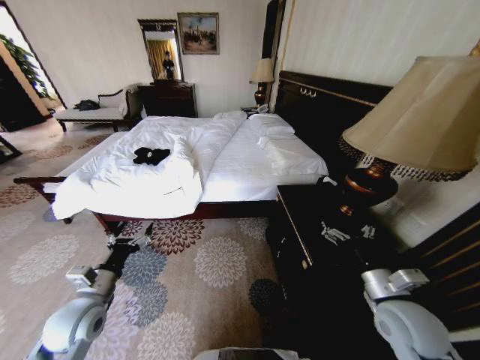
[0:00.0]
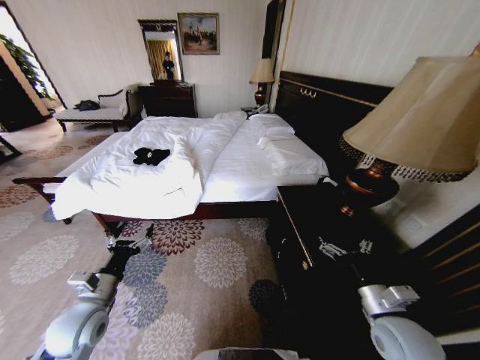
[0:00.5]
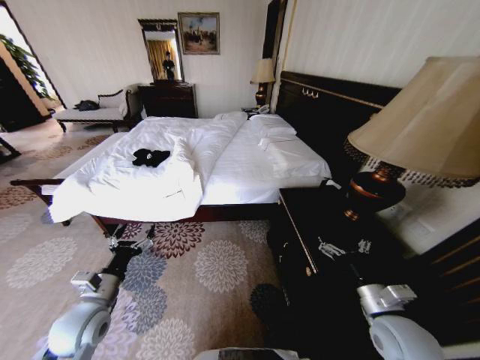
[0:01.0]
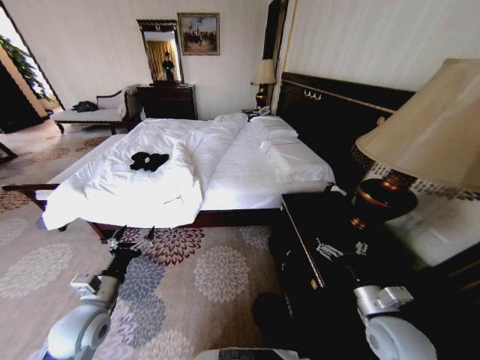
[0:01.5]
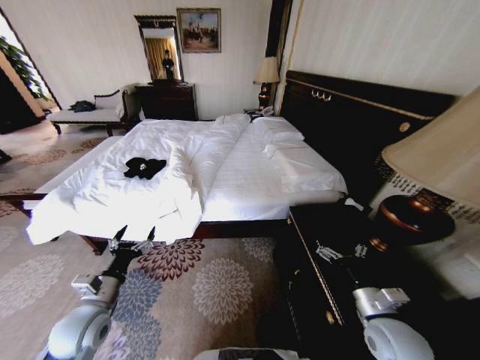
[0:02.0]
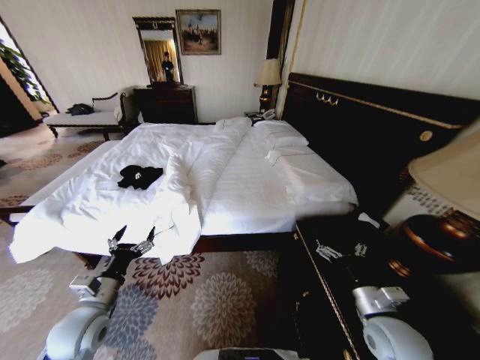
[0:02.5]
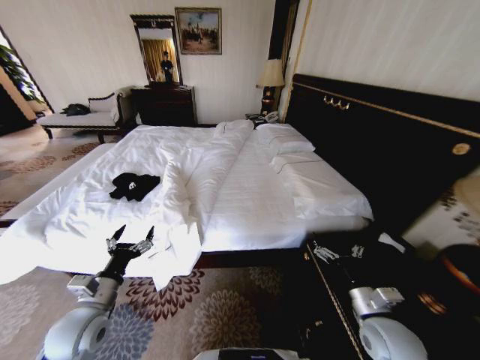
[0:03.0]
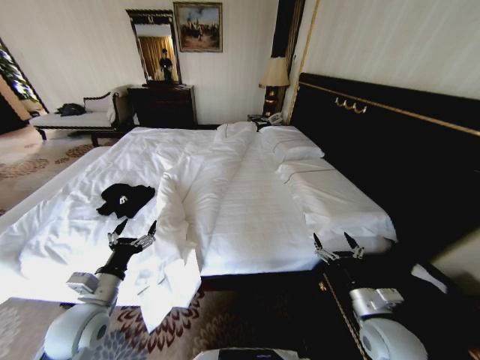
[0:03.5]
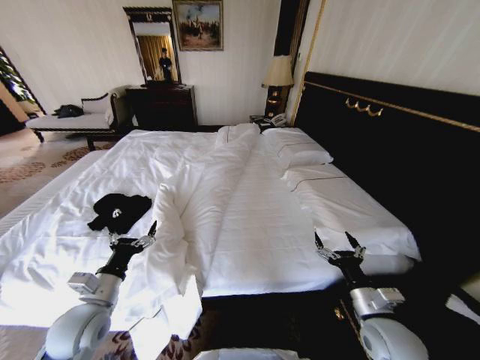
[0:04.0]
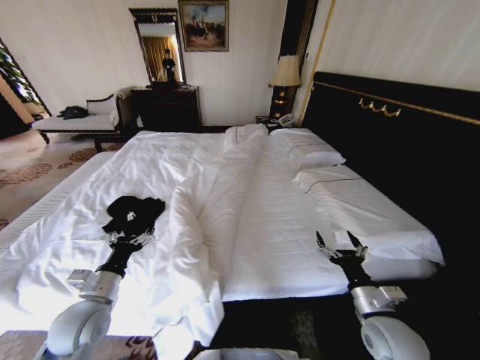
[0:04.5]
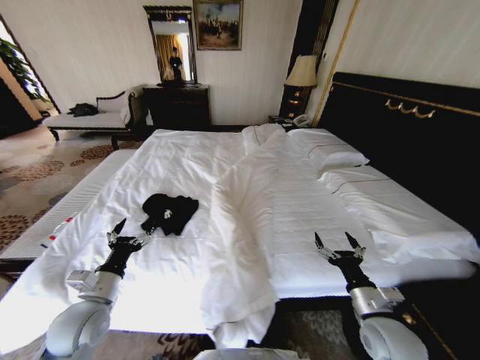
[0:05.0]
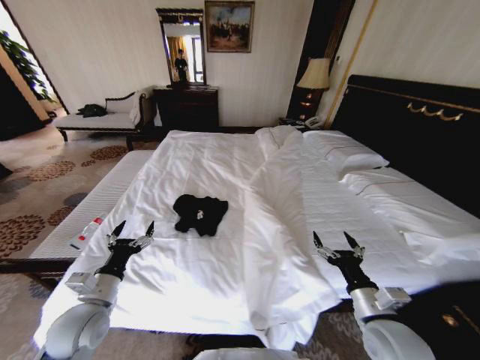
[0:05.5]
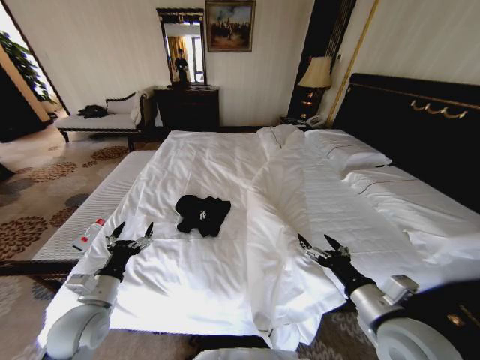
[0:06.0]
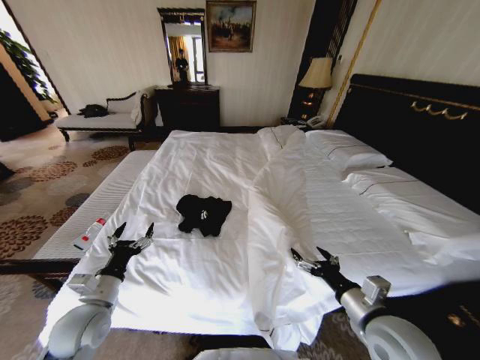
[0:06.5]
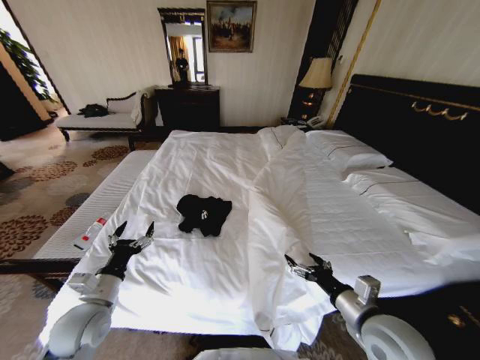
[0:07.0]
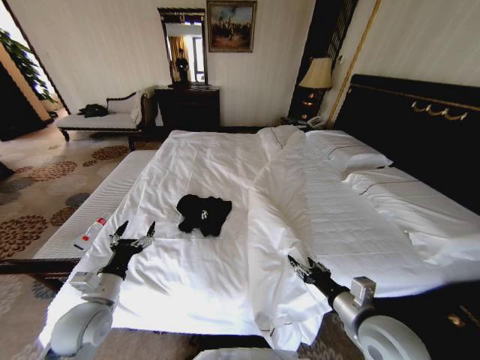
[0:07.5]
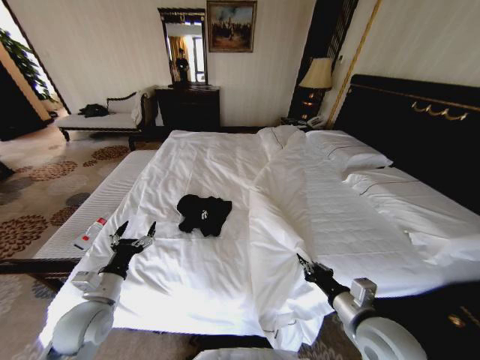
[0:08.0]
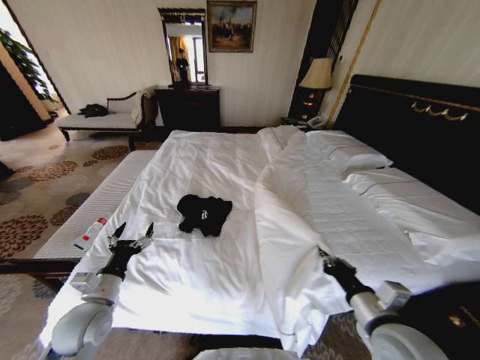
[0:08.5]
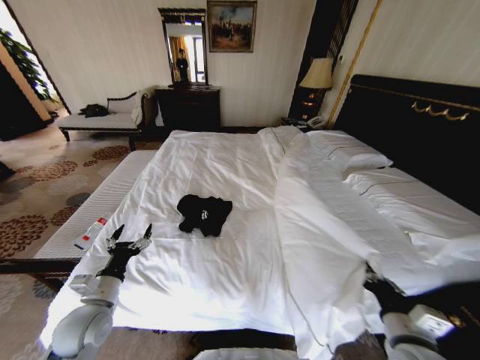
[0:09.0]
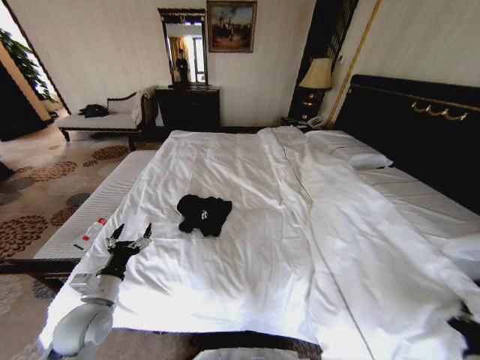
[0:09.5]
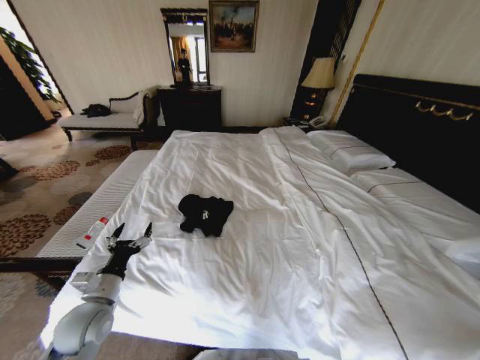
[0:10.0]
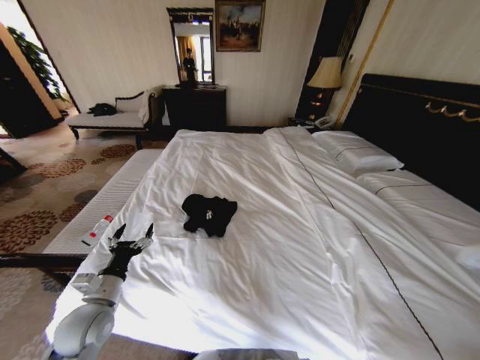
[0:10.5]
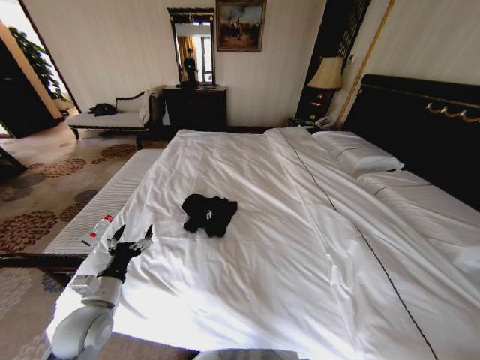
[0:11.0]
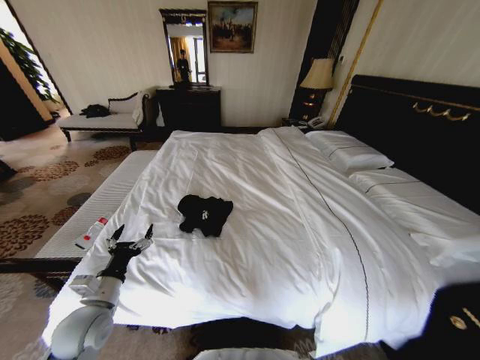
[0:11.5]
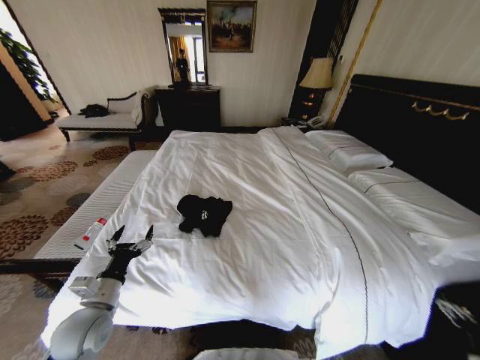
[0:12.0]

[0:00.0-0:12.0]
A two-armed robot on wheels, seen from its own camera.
Task of the whole recording: Fold the clothes on the bed.
4.0 to 6.0 s: The right gripper shifts approximately 10 cm upward.
6.0 to 8.0 s: The right gripper closes up.
8.0 to 10.0 s: The right gripper travels to the right and backward by roughly 30 cm.
10.0 to 12.0 s: The right gripper ends up approximately 5 cm from where it was, and opens up.

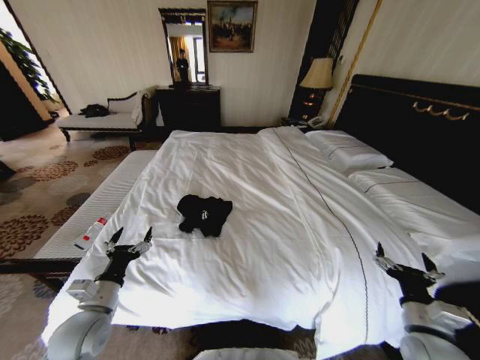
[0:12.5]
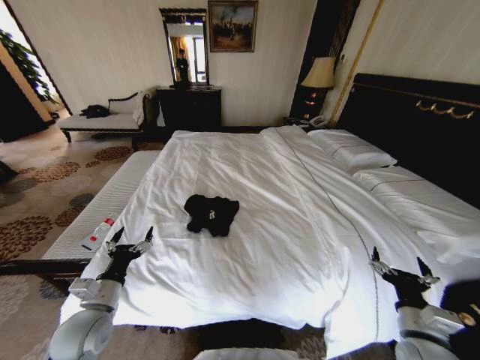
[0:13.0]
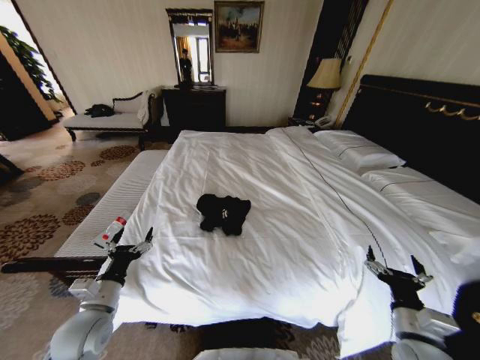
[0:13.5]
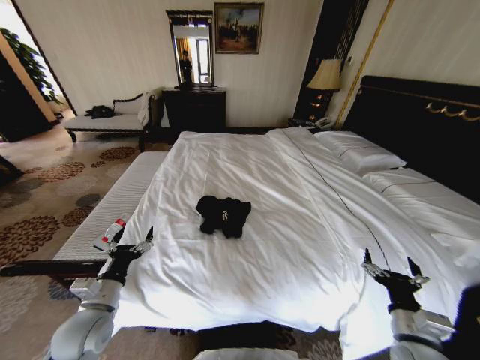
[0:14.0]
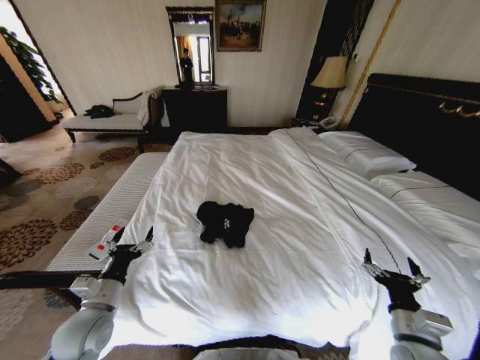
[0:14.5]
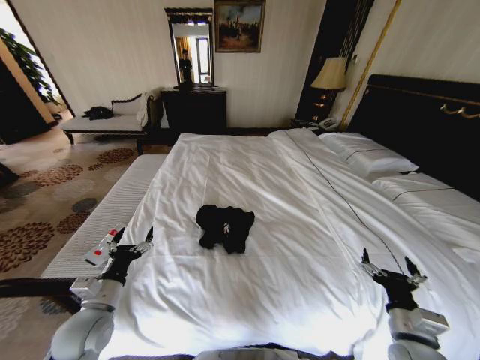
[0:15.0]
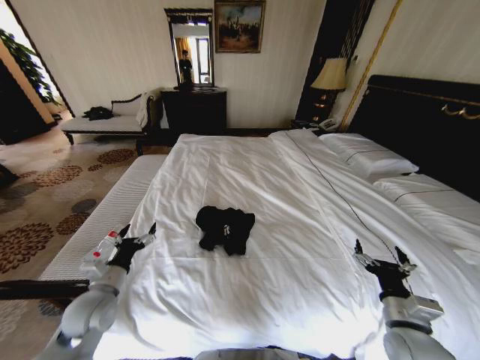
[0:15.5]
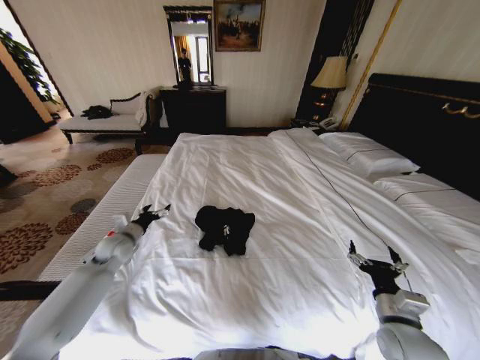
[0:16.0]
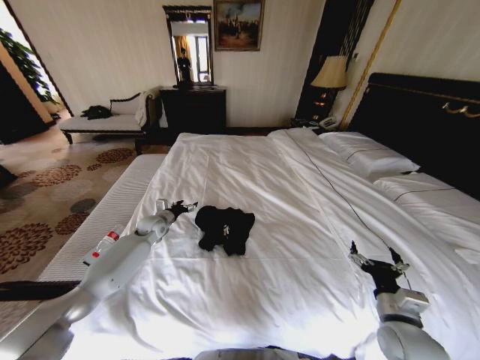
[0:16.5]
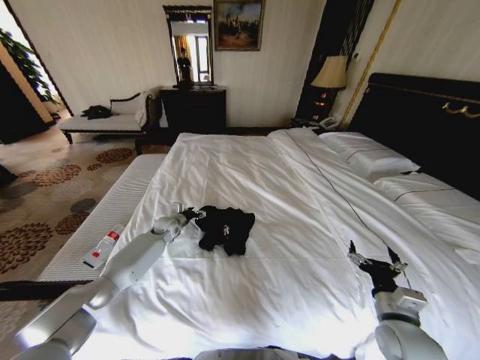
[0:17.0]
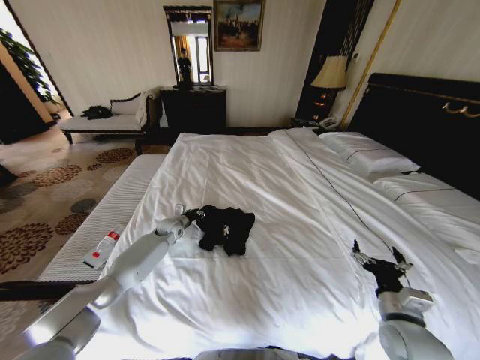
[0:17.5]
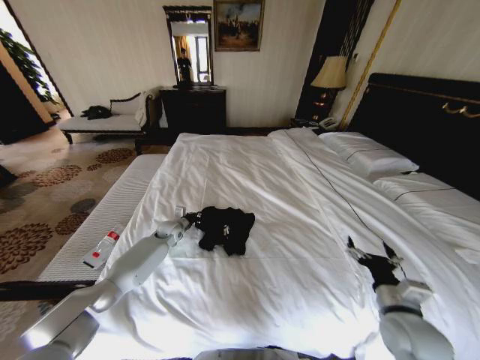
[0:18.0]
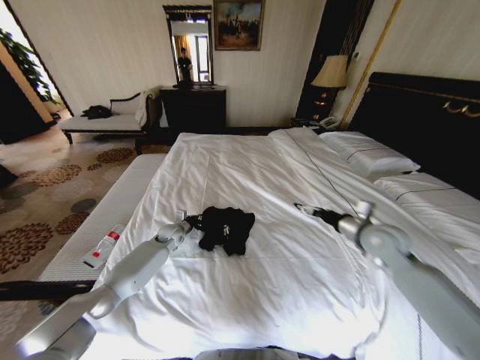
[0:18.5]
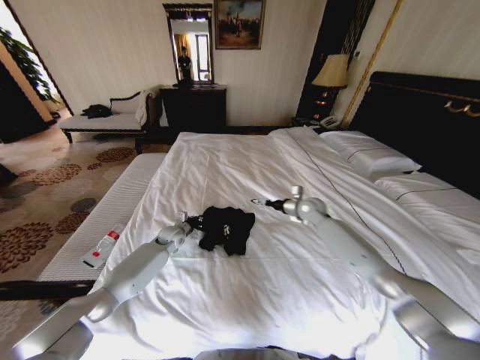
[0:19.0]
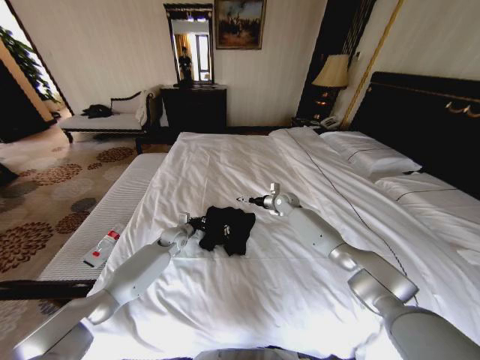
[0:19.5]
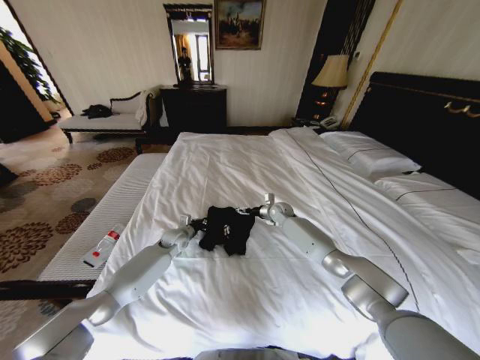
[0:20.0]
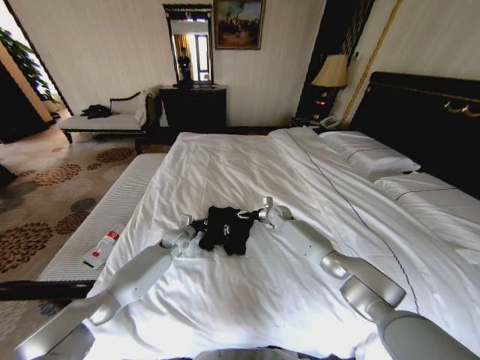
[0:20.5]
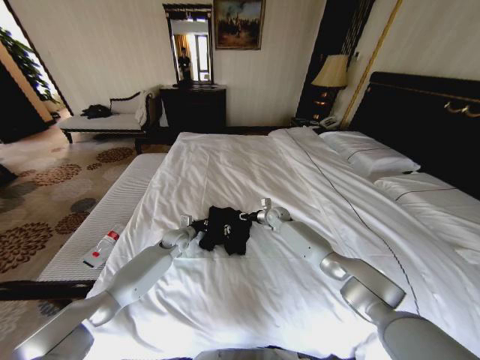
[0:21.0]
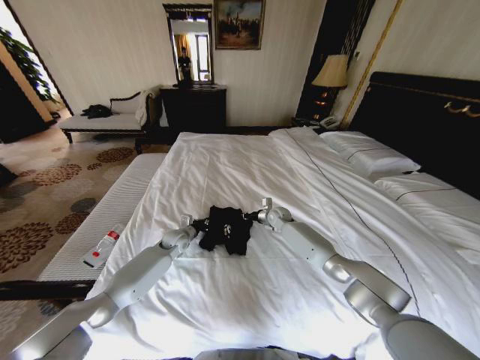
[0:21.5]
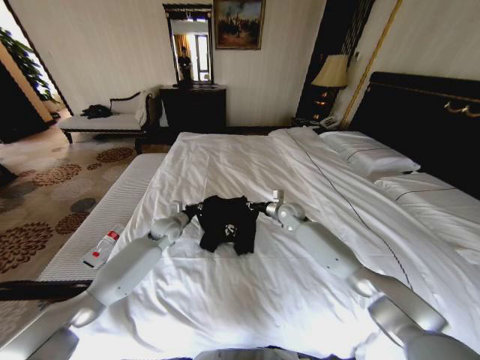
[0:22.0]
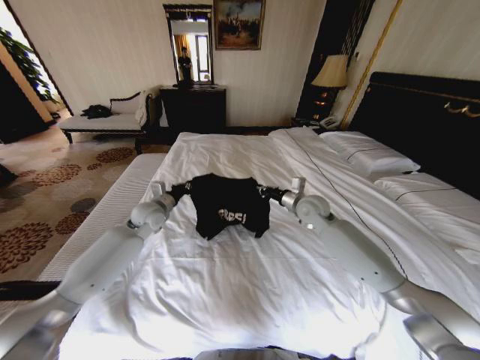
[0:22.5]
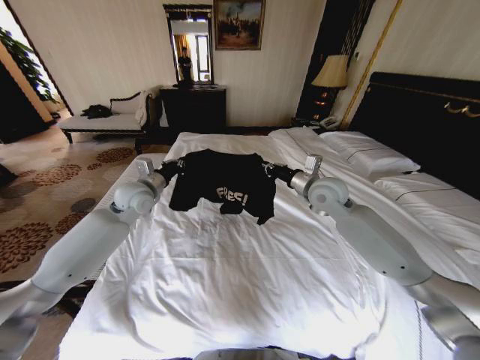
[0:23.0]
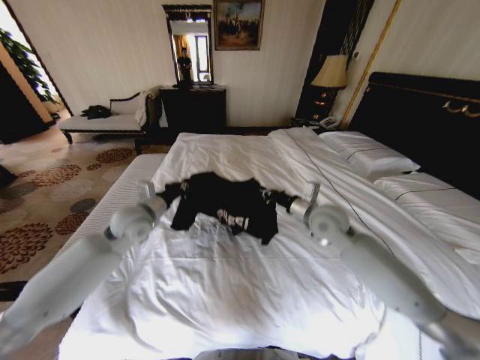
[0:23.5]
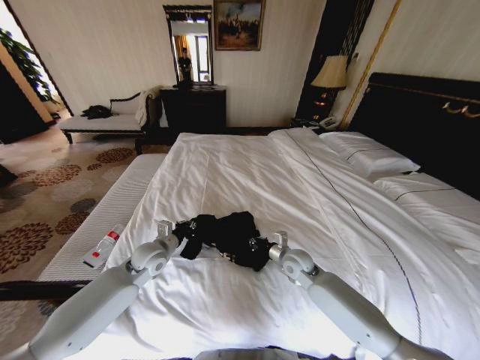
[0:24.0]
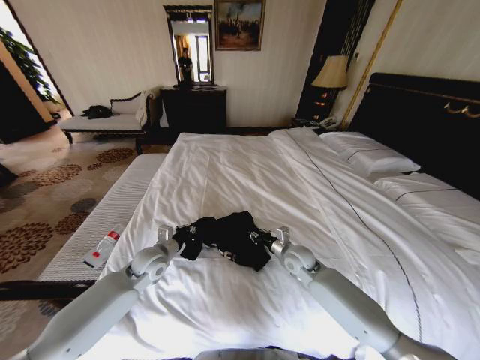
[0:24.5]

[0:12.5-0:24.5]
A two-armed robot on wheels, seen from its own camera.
Task of the whole recording: Fold the clothes on the bed.
14.5 to 16.5 s: The left gripper shifts approximately 30 cm forward.
16.5 to 18.5 s: The right gripper shifts approximately 25 cm forward and upward. Meanwhile the left gripper travels to the right and downward by roughly 10 cm, and closes up.
18.5 to 20.5 s: The right gripper moves forward, to the left and downward, approximately 35 cm.
20.5 to 22.5 s: The right gripper moves upward and backward, about 20 cm, and closes up; the left gripper moves upward, some 15 cm.
22.5 to 24.5 s: The right gripper is displaced downward and backward by about 20 cm. The left gripper is displaced backward and downward by some 15 cm.

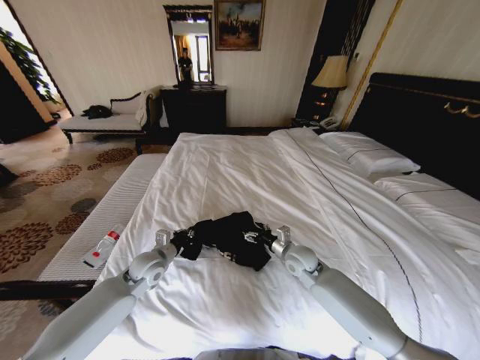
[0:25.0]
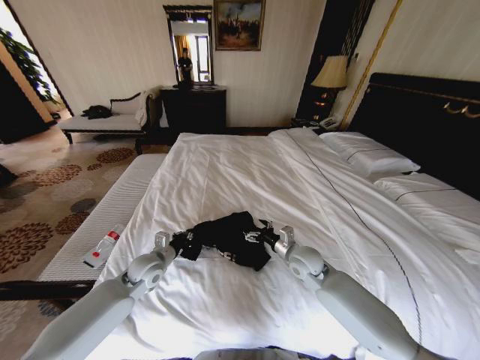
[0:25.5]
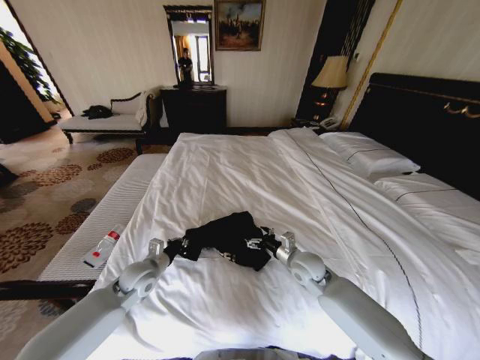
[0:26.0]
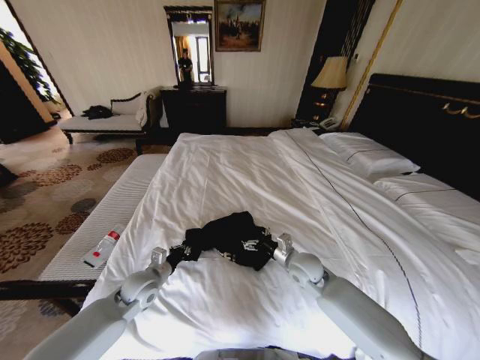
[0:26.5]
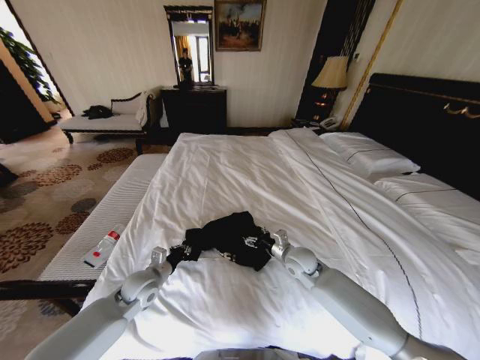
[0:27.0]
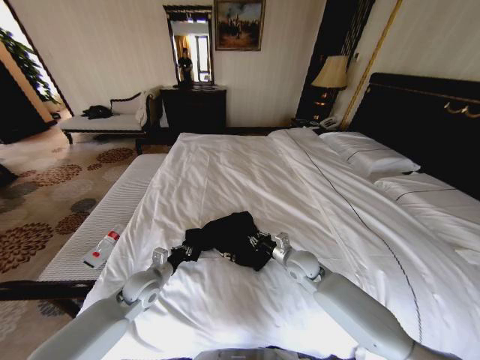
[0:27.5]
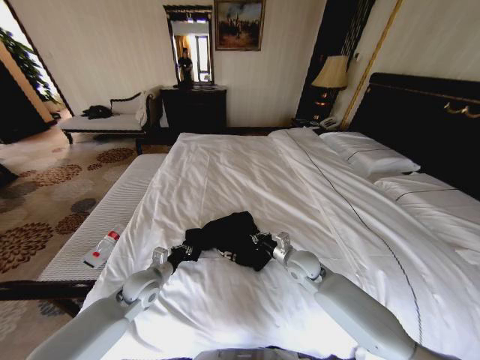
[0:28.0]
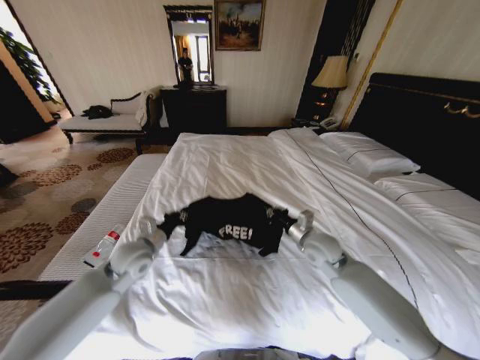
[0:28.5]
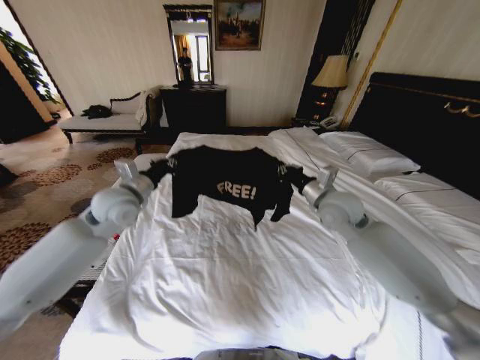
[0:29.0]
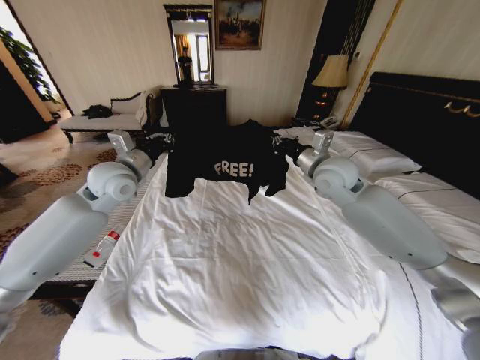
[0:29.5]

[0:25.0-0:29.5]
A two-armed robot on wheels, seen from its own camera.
Task of the whole recording: Fold the clothes on the bed.
25.0 to 27.0 s: The left gripper shifts by approximately 5 cm.
27.0 to 29.5 s: The left gripper heads upward and forward, covering approximately 30 cm. Meanwhile the right gripper is displaced upward by about 30 cm, and closes.
